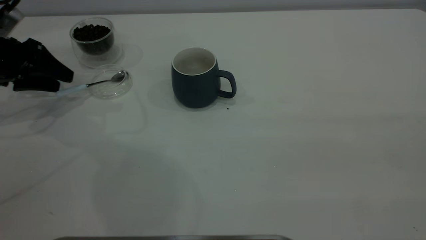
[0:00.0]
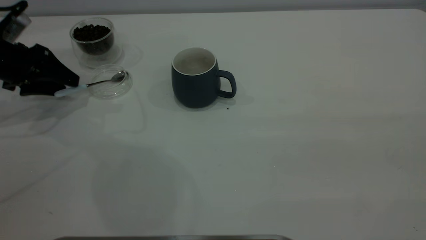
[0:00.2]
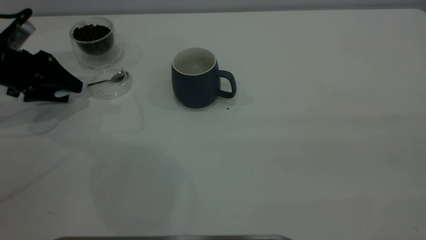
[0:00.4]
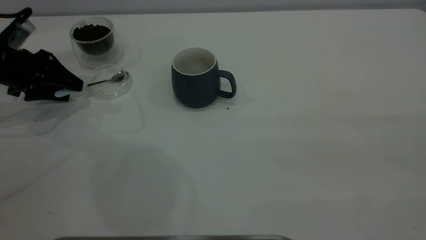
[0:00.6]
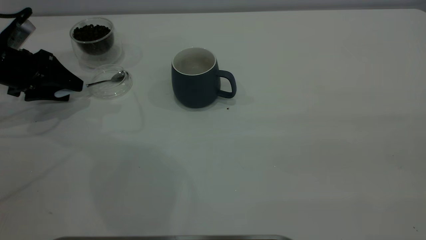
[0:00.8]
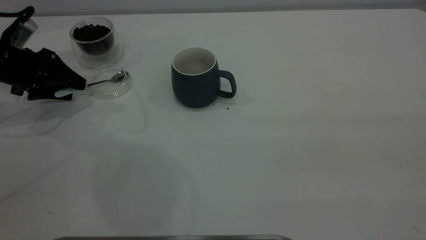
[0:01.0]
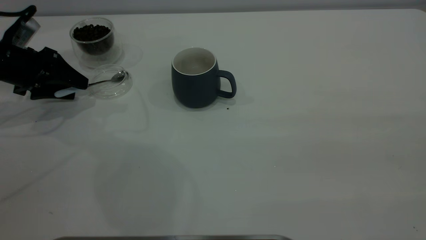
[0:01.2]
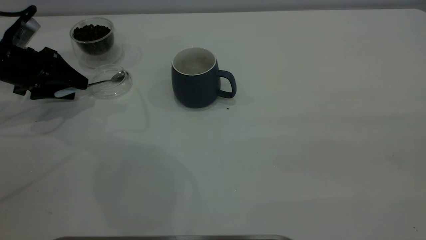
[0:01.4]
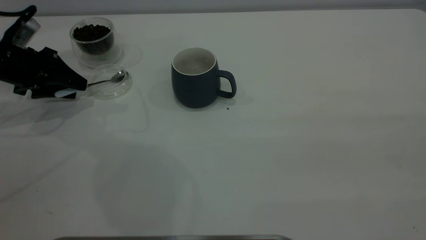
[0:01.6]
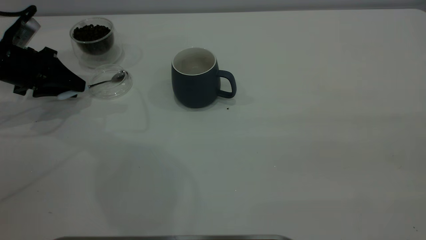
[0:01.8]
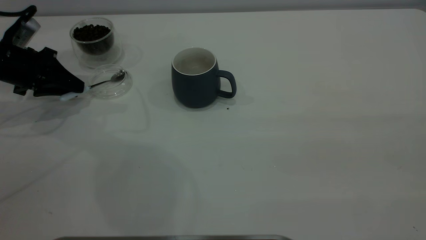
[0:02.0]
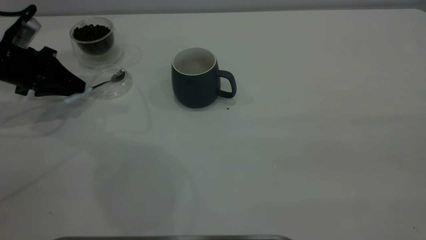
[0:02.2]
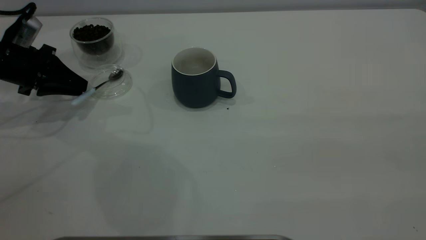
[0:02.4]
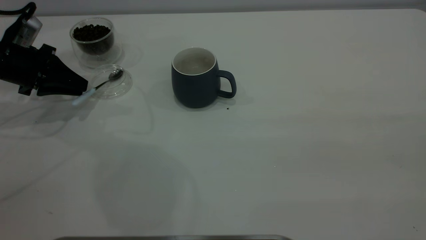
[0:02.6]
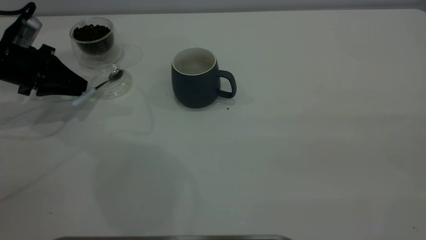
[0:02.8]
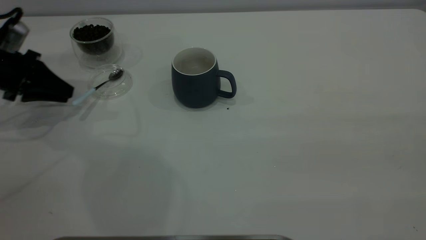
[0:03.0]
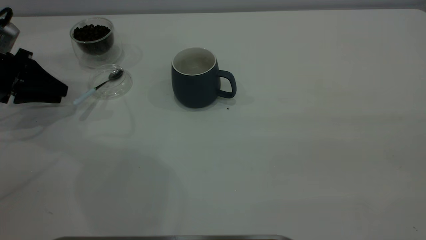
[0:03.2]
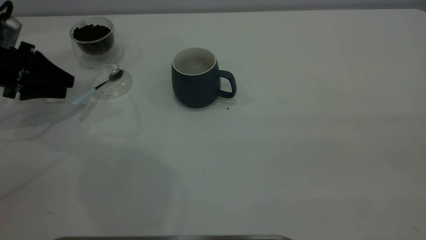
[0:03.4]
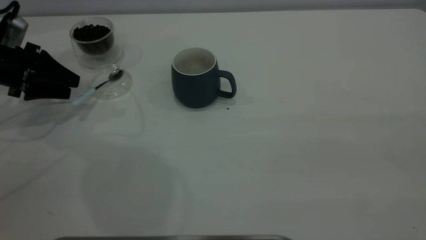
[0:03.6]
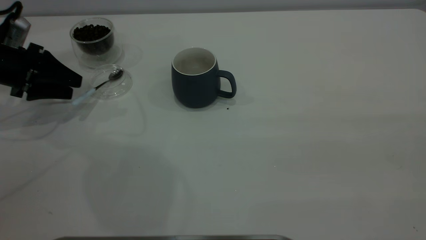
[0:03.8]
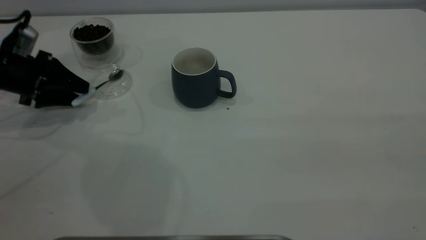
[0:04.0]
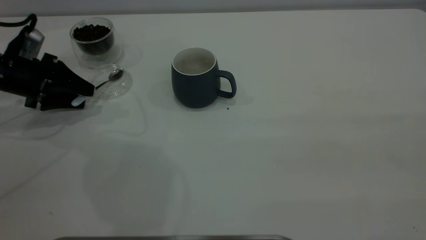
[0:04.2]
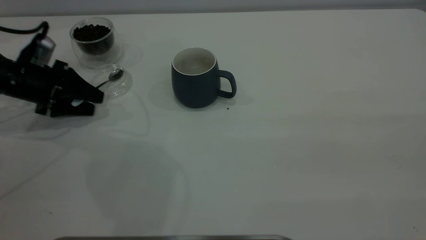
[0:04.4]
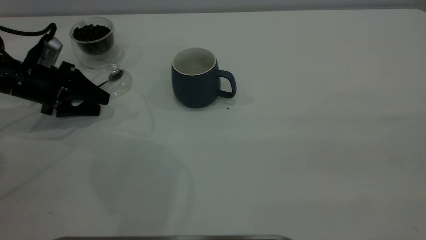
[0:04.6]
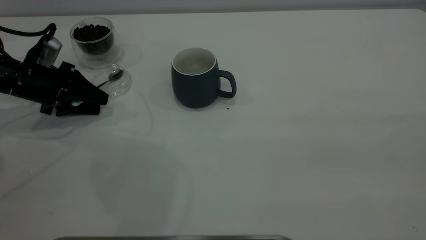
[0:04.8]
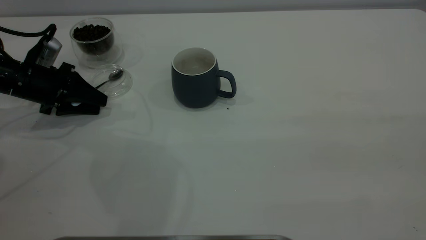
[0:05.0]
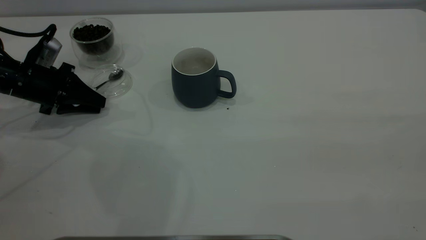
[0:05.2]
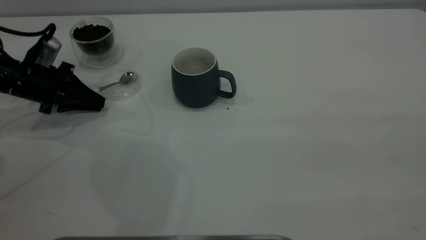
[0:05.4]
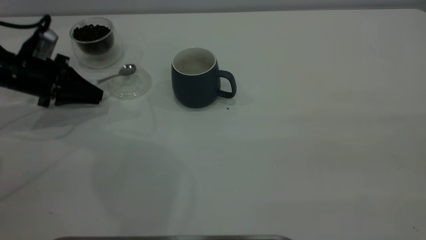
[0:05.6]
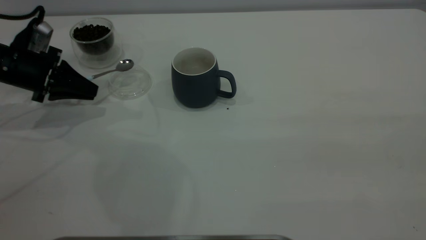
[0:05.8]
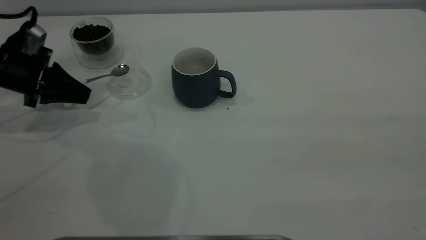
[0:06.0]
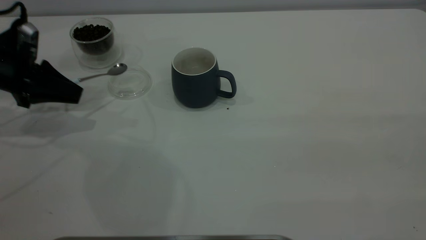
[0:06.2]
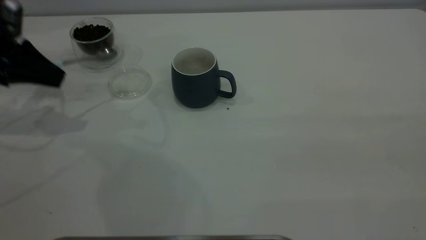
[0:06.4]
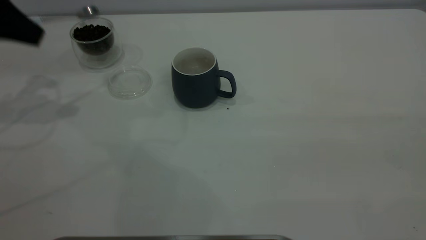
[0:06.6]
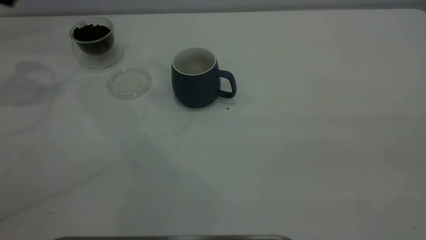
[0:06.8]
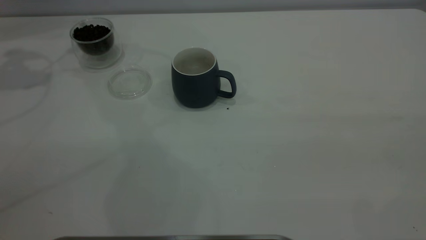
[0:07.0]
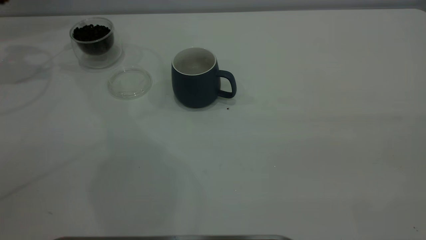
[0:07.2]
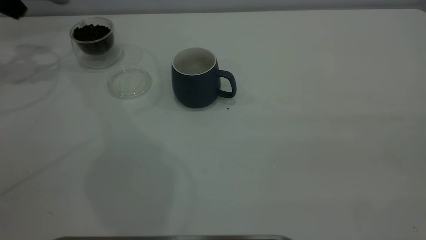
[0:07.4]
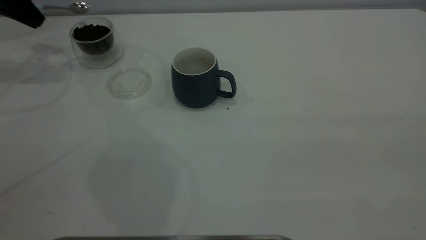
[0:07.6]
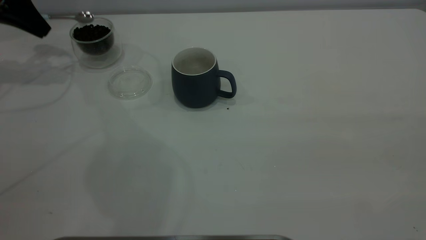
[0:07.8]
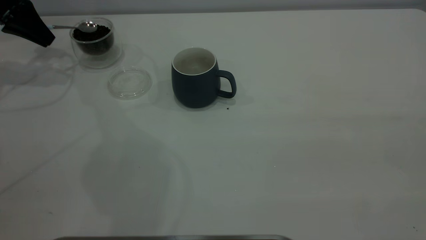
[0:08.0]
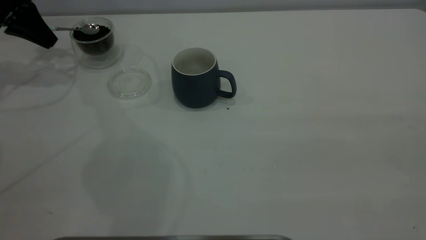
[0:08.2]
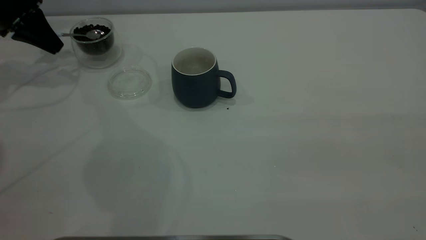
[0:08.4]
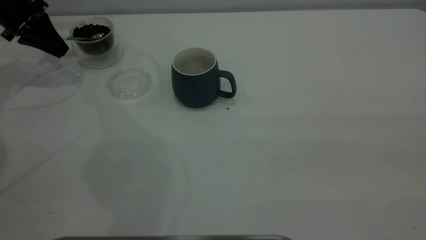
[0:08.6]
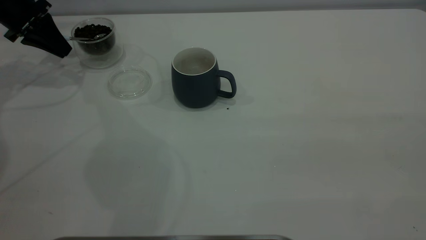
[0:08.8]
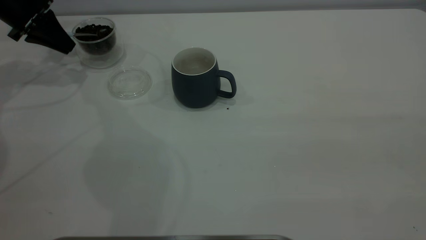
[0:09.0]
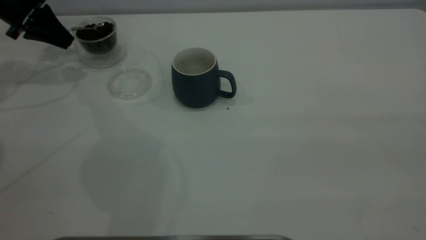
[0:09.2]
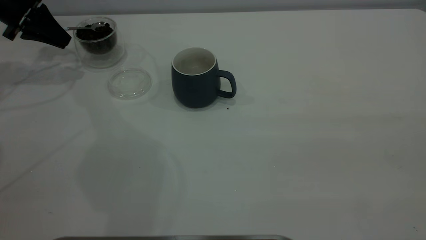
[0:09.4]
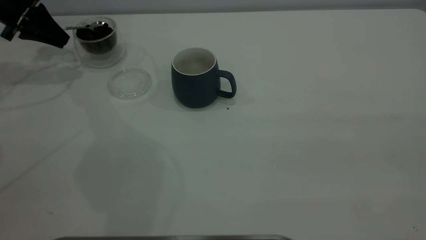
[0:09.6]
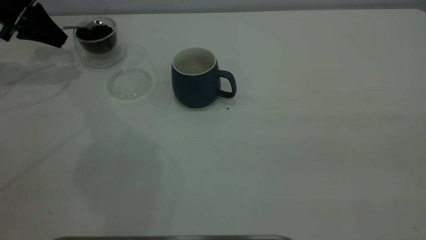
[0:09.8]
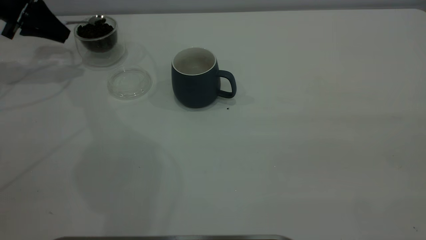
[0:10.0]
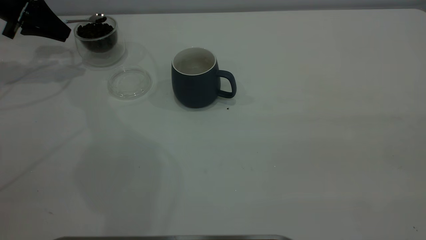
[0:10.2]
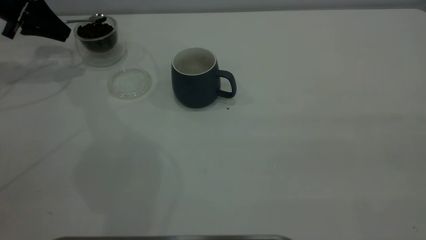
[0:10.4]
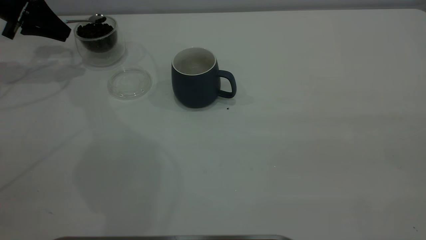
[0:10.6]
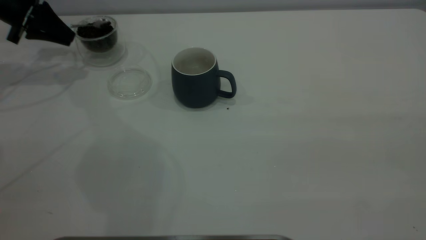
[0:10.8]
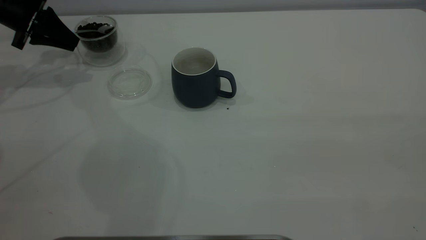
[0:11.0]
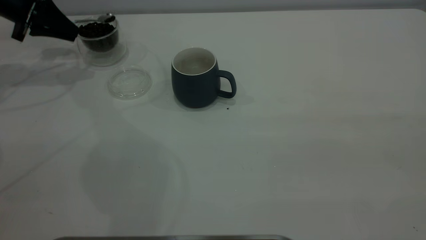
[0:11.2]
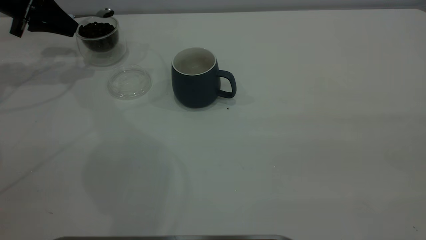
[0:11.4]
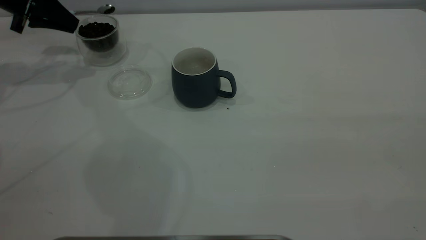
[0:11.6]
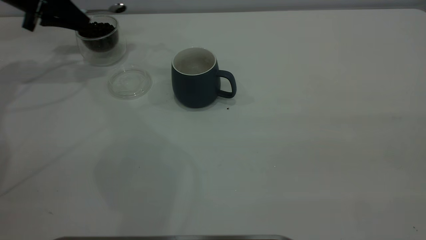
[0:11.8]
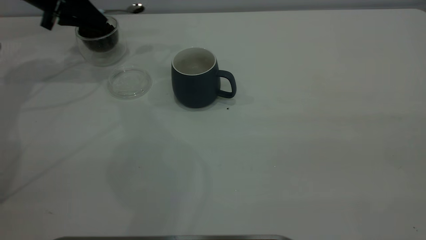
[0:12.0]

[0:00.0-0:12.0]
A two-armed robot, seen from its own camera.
Task of the whole recording: the right gripper place the grey cup in the center of the table, the left gripper take the blue spoon from the cup lid and scoop out the coffee beans from the coffee cup and put them into the grey cup, the left gripper put the spoon back into the cup lid.
Step, 0:00.0 to 0:05.6: Pick up the spoon.
0:00.0 to 0:01.6: There are only small adjustments of the grippers.
0:01.6 to 0:03.0: The left gripper closes up.
0:03.0 to 0:04.4: The left gripper shifts by approximately 5 cm, and opens up.
0:04.4 to 0:06.0: The left gripper closes.
0:06.0 to 0:07.6: The left gripper is displaced upward and forward by about 15 cm.
0:07.6 to 0:09.0: The left gripper shifts roughly 5 cm downward.
0:09.0 to 0:10.4: There are only small adjustments of the grippers.
0:10.4 to 0:12.0: The left gripper shifts roughly 10 cm to the right.

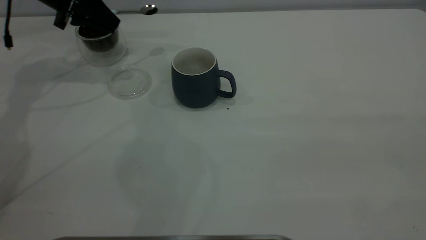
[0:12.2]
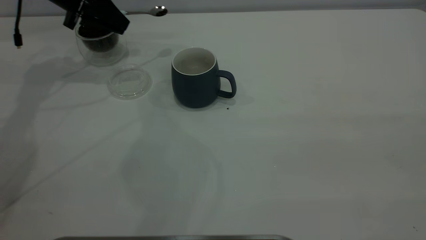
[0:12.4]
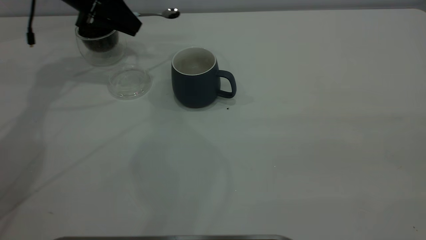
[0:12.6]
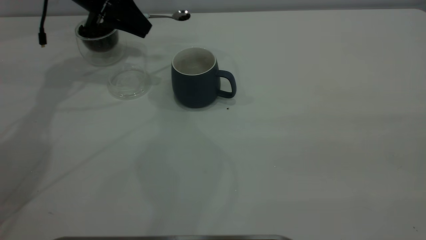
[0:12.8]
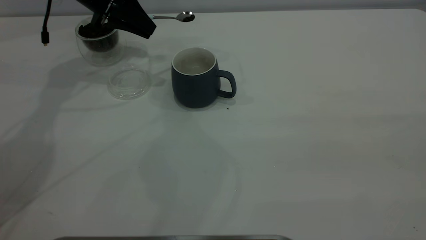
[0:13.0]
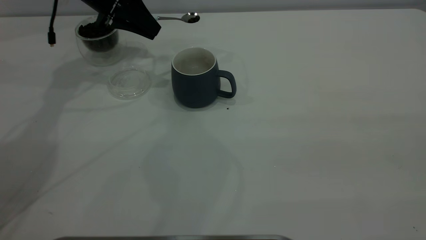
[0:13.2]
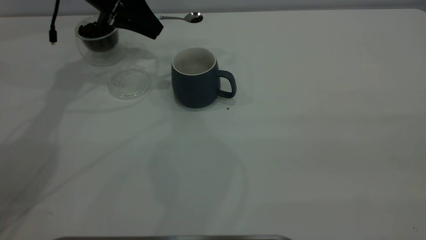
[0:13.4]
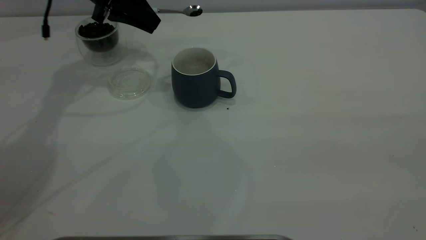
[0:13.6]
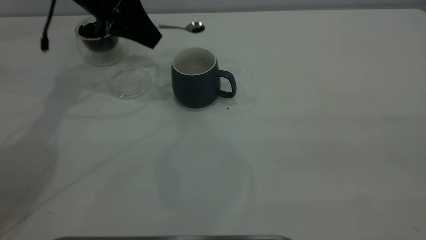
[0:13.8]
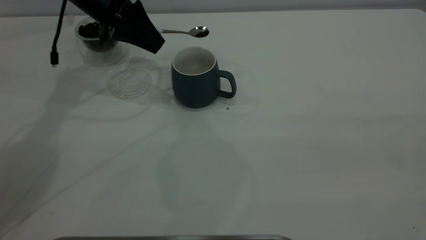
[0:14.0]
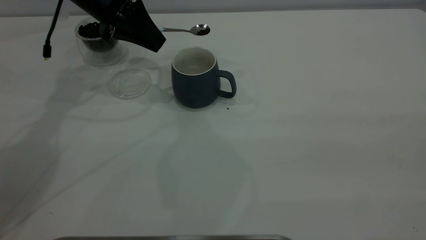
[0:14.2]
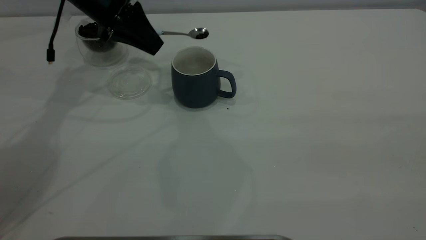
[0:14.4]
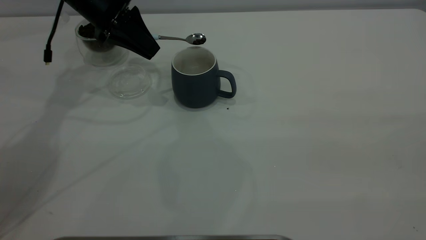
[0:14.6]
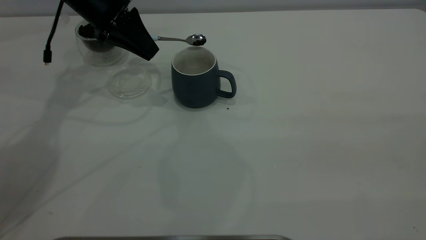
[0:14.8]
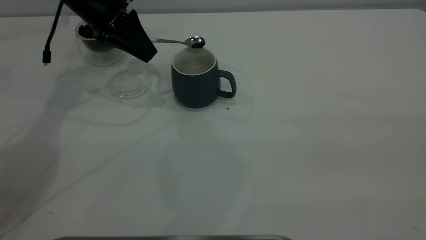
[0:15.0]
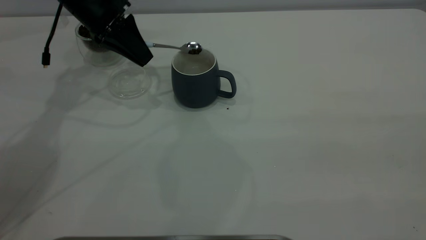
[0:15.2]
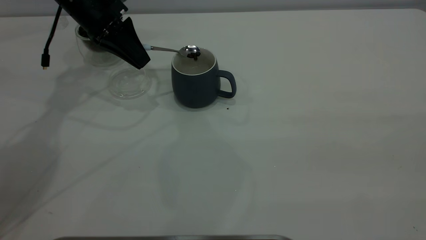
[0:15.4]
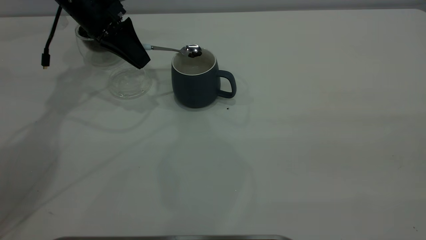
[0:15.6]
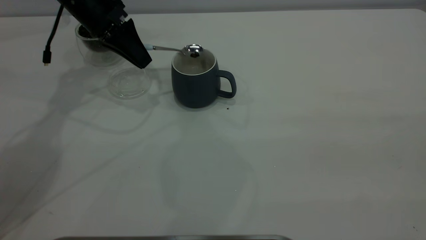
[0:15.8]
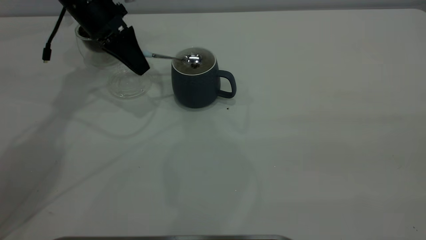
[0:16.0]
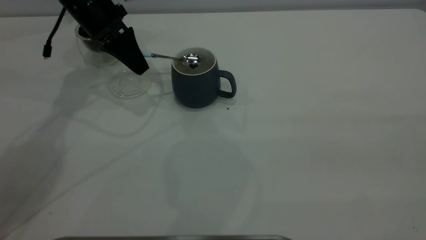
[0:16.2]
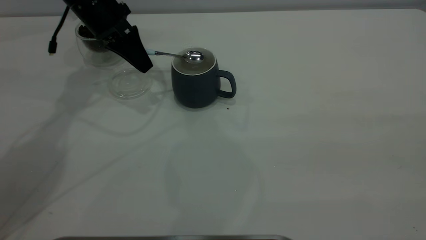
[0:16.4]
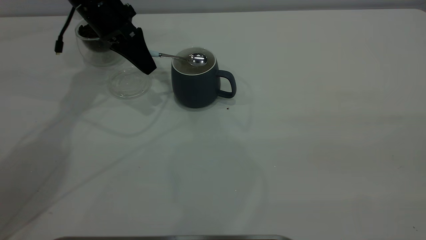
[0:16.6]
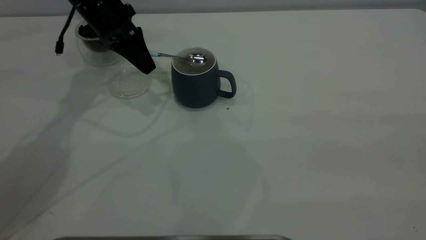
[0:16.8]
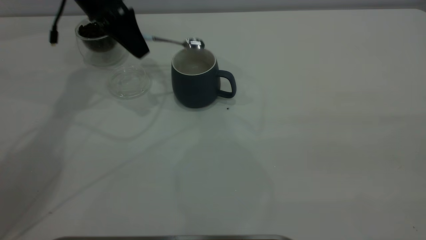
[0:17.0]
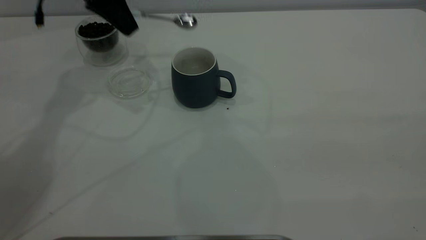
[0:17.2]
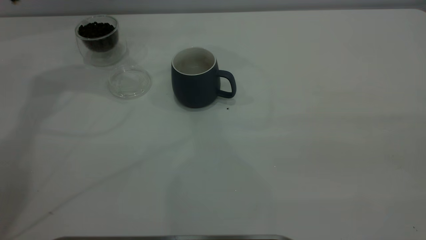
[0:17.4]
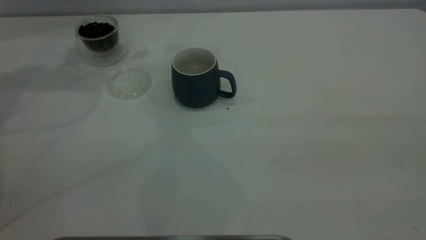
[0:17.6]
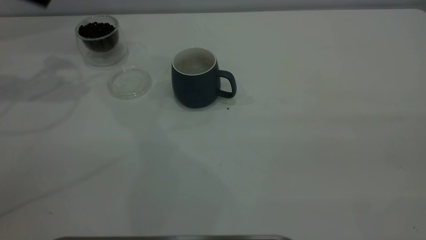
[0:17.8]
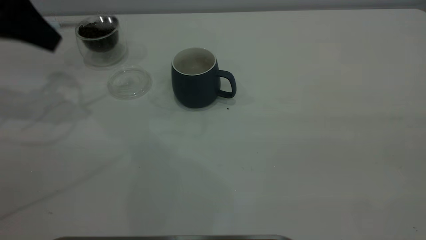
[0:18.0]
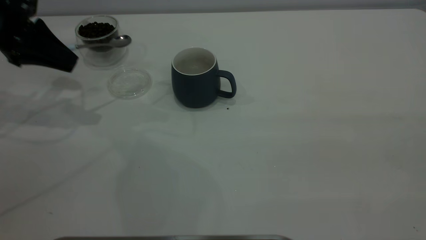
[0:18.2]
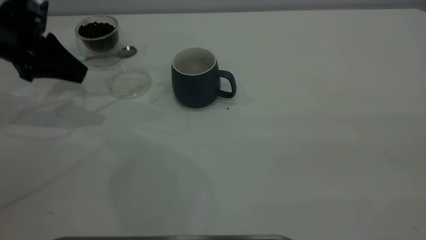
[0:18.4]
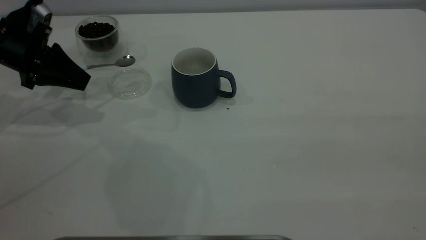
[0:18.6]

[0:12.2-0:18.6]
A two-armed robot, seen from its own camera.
Task of the whole recording: the right gripper place the grey cup in the center of the table, the left gripper take the blue spoon from the cup lid and scoop out the coffee beans from the coffee cup and put them into the grey cup, the left gripper put the spoon back into the cup lid.
Step, 0:12.2 to 0:16.8: Scoop a spoonful of beans into the cup.
0:12.2 to 0:13.8: The left gripper heads to the right, covering approximately 10 cm.
0:13.8 to 0:15.4: The grippers move only a little.
0:15.4 to 0:17.0: The grippers make only small movements.
0:17.0 to 0:18.6: The left gripper is displaced to the left and downward by some 15 cm.
